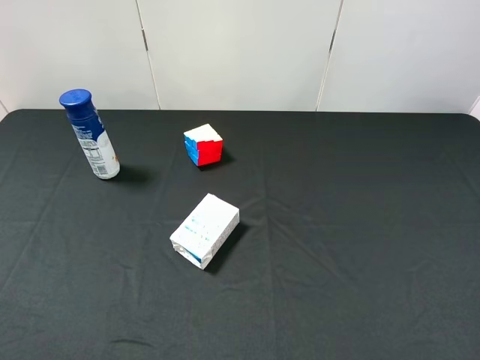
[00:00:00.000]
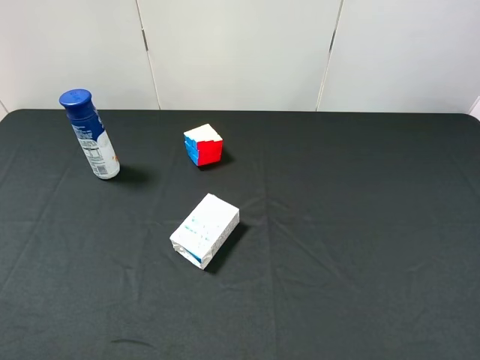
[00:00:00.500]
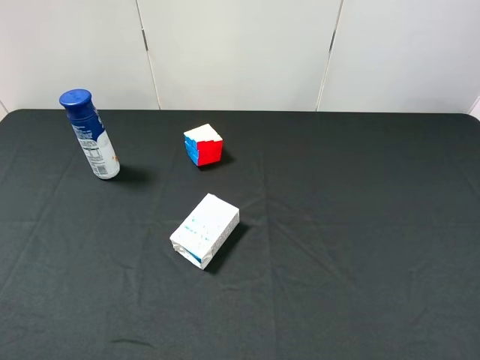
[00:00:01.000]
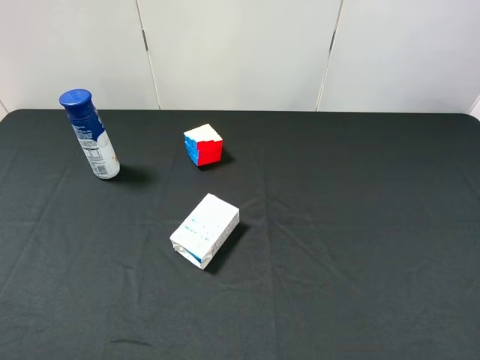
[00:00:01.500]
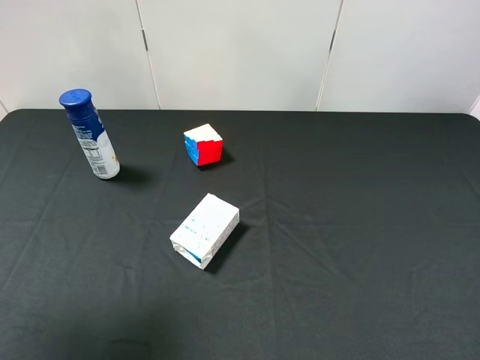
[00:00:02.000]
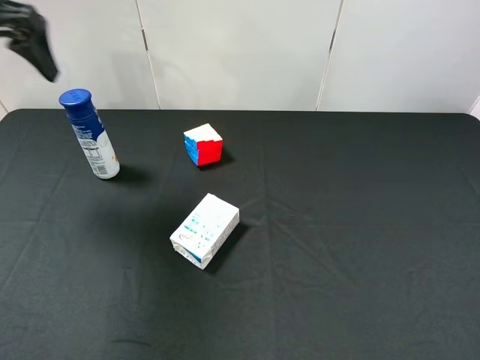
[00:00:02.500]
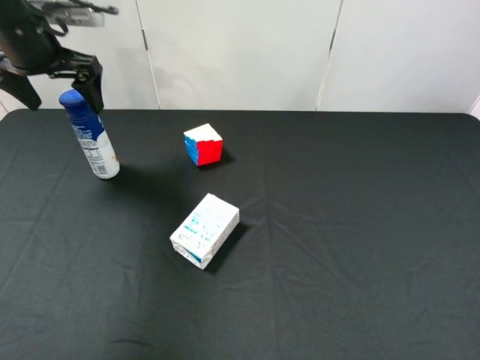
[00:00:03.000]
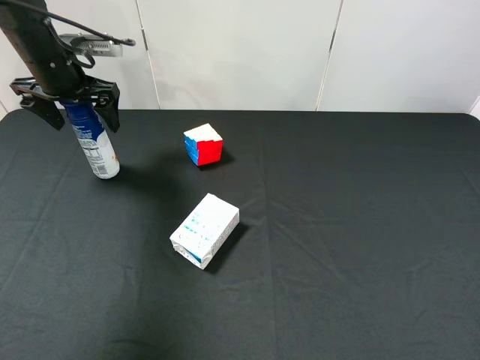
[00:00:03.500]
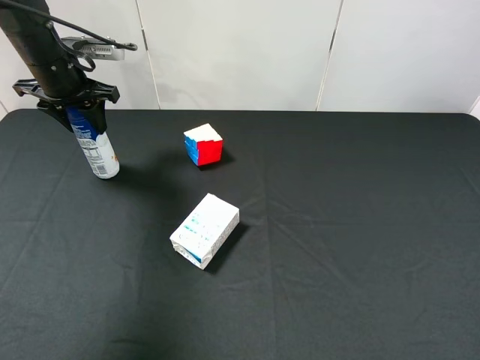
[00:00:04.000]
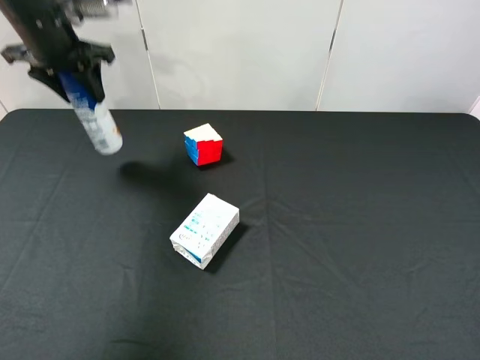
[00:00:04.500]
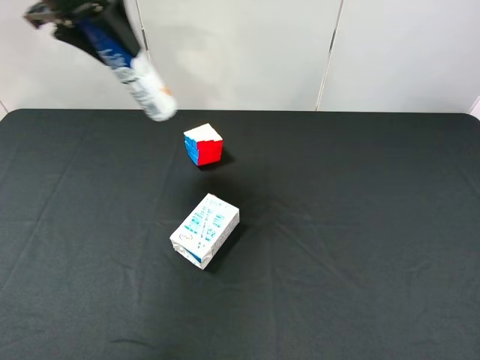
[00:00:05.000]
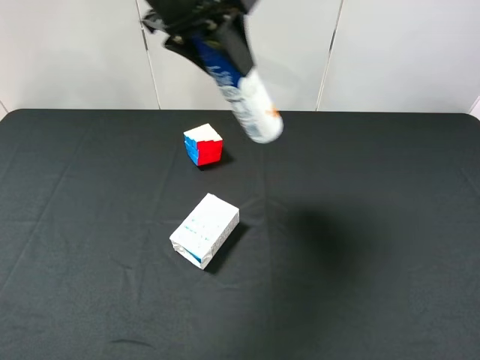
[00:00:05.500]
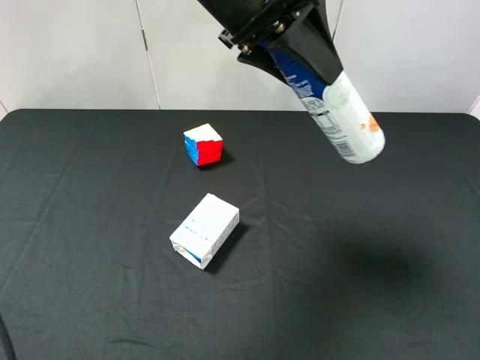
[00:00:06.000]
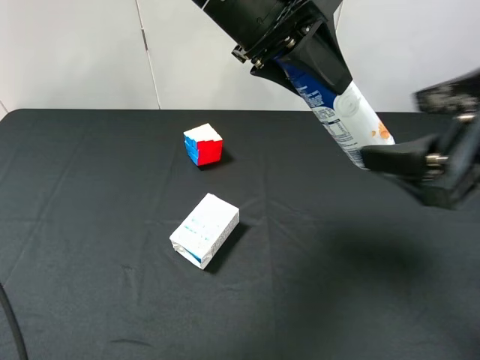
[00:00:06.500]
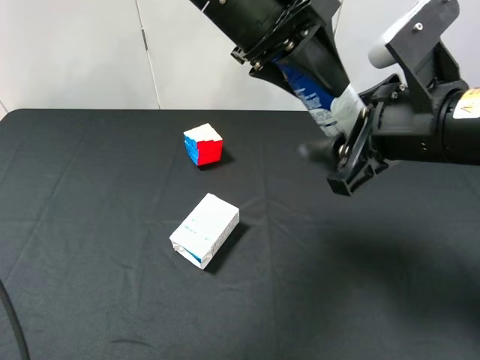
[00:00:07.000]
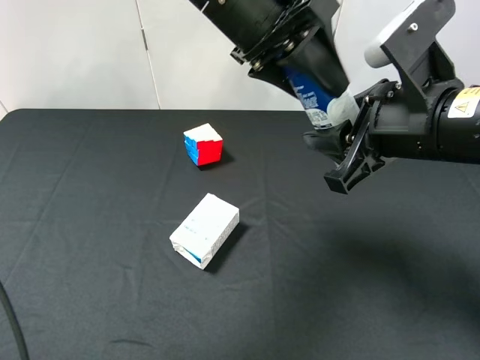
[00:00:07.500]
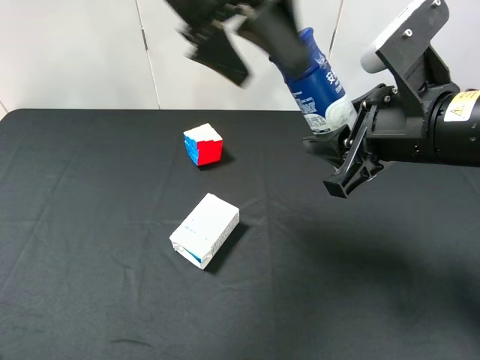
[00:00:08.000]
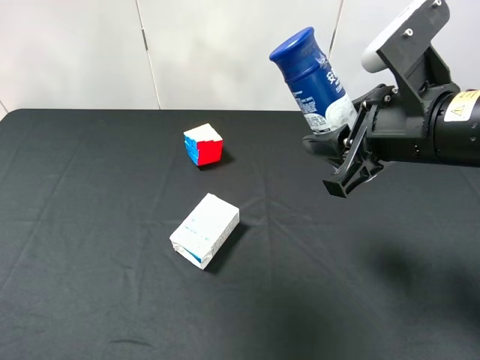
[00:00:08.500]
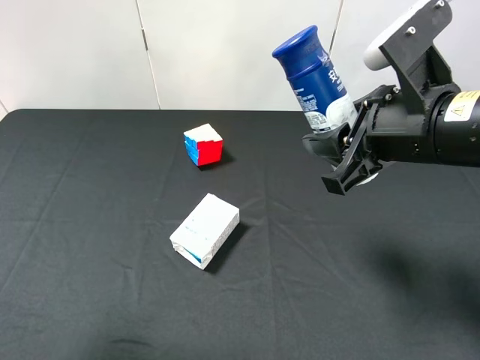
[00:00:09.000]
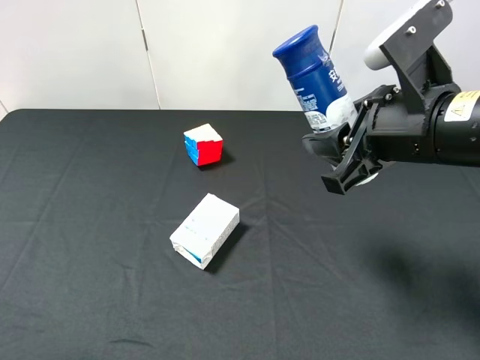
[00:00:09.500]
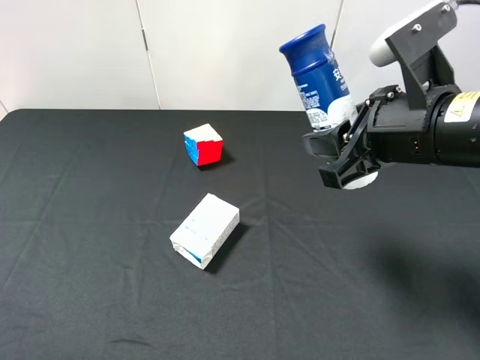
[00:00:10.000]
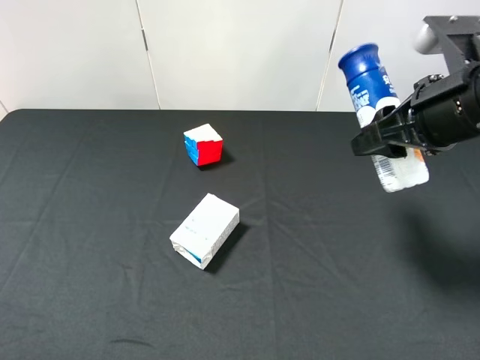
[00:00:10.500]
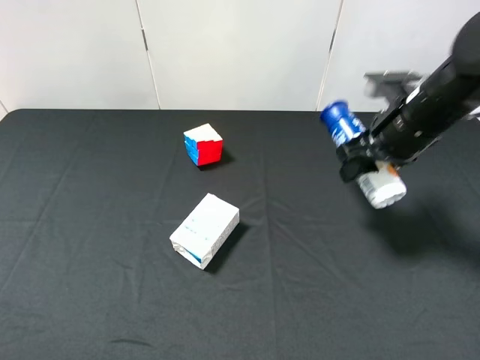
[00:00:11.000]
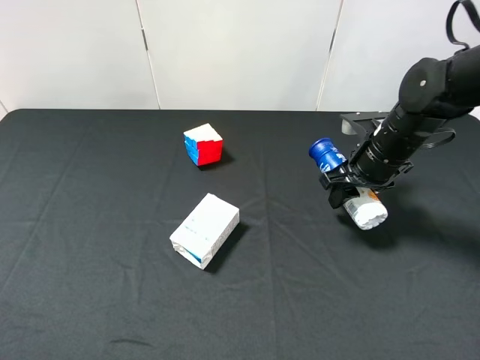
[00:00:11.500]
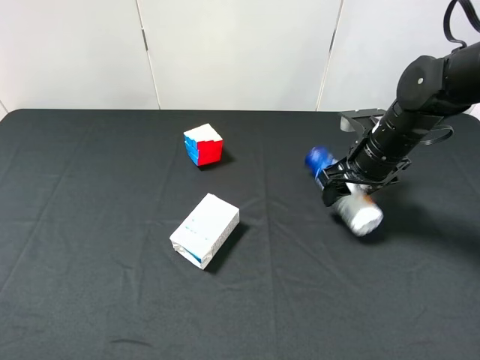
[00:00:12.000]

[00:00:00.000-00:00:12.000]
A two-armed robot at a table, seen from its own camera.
Task of the whole recording: use the left gripper to pick up the item and transfer it from the left gripper to the right gripper.
00:00:00.000 to 00:00:02.000: The left gripper heads forward and upward, covering some 20 cm.
00:00:02.000 to 00:00:04.000: The left gripper travels forward and downward by about 30 cm, and closes up.
00:00:04.000 to 00:00:06.000: The left gripper shifts roughly 30 cm to the right, upward and backward. Meanwhile the right gripper heads forward, covering approximately 5 cm.
00:00:06.000 to 00:00:08.000: The left gripper shifts by some 5 cm, and opens; the right gripper shifts about 15 cm forward, to the left and downward, and closes up.
00:00:08.000 to 00:00:10.000: The left gripper heads backward and to the left, covering roughly 40 cm.
00:00:10.000 to 00:00:12.000: The right gripper travels forward and downward by approximately 20 cm, and opens up.

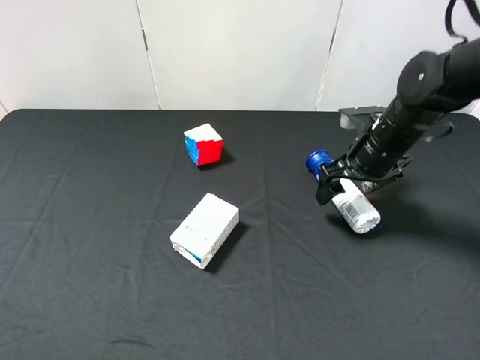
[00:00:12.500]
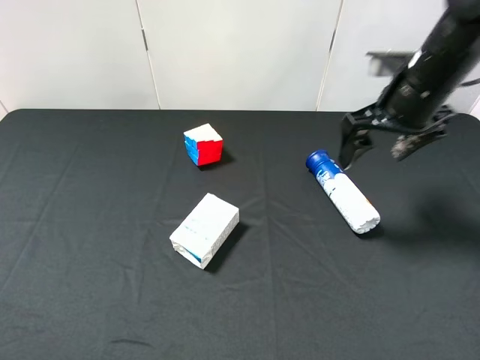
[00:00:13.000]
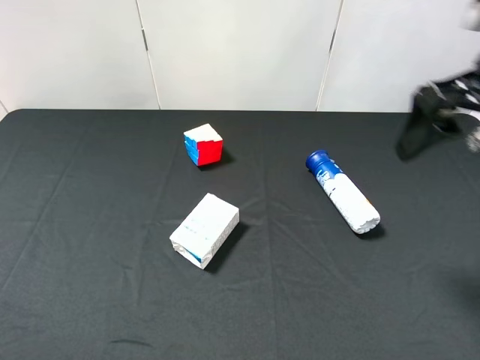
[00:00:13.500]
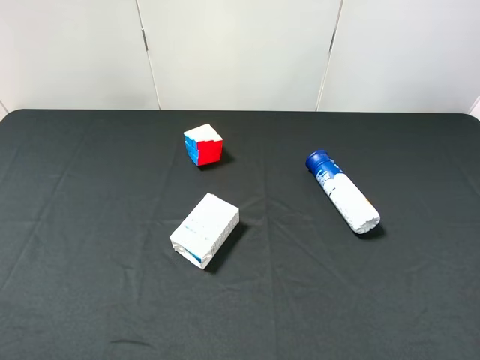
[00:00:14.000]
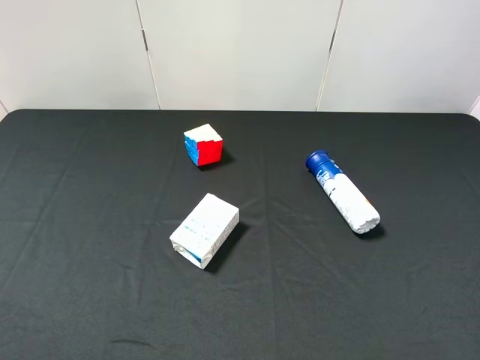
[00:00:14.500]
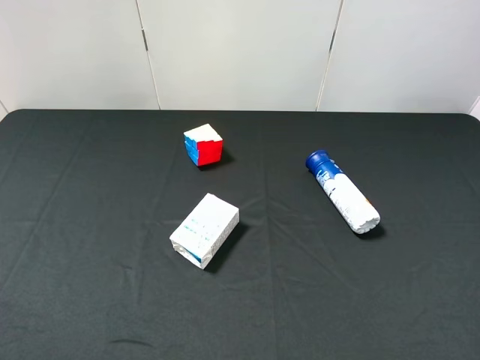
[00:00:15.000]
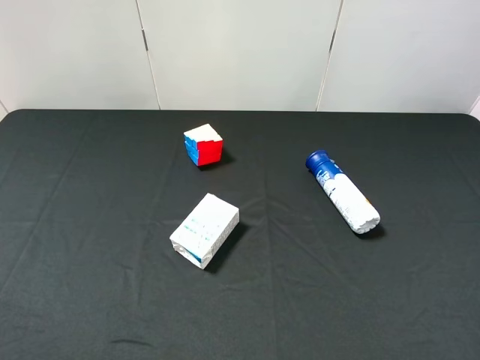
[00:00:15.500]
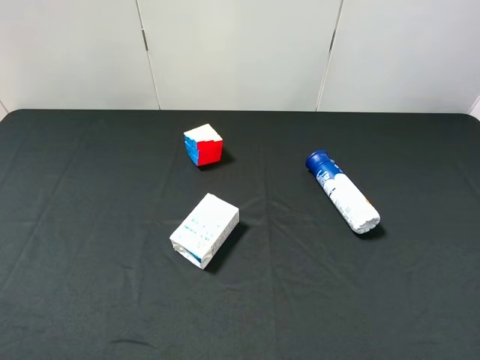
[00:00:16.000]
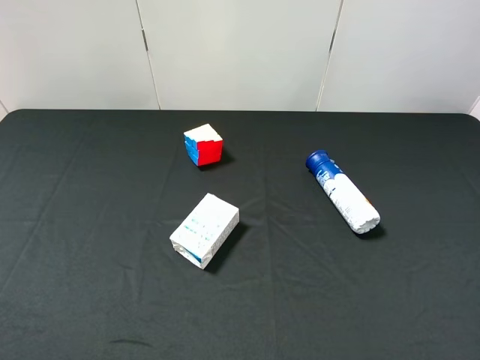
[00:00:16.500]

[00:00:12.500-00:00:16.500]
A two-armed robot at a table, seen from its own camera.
Task of the whole recording: use the left gripper to pick up the item and transfer it from the left gripper to the right gripper.
00:00:12.500 to 00:00:14.500: The right gripper is displaced backward by about 35 cm.
